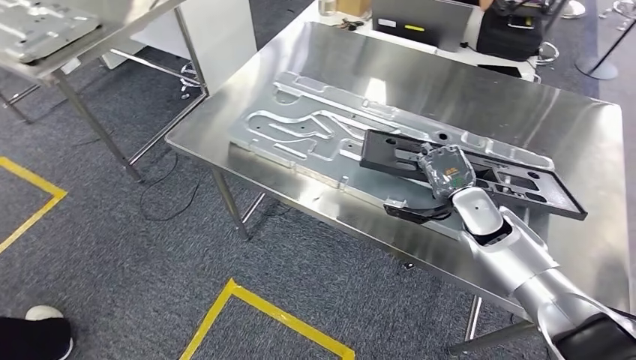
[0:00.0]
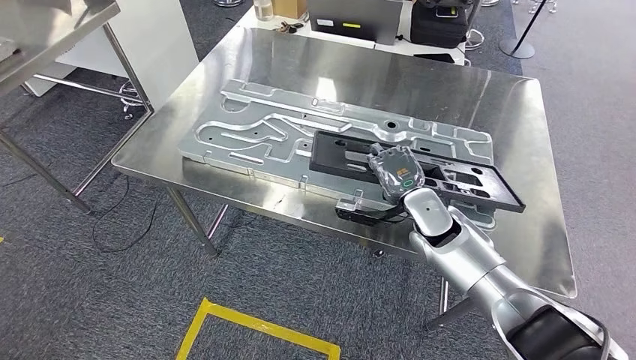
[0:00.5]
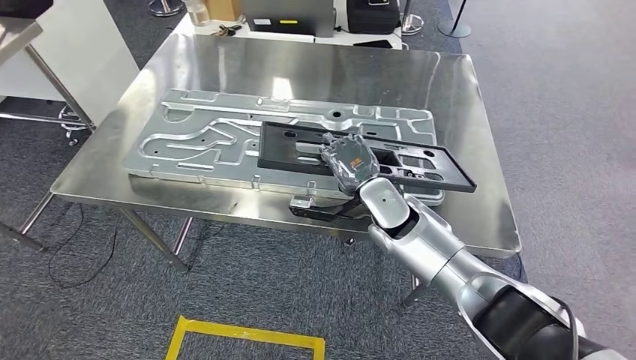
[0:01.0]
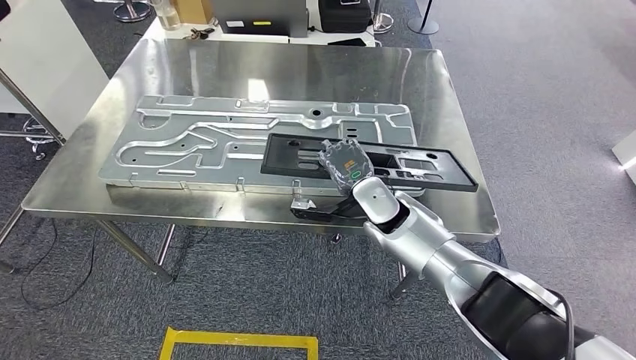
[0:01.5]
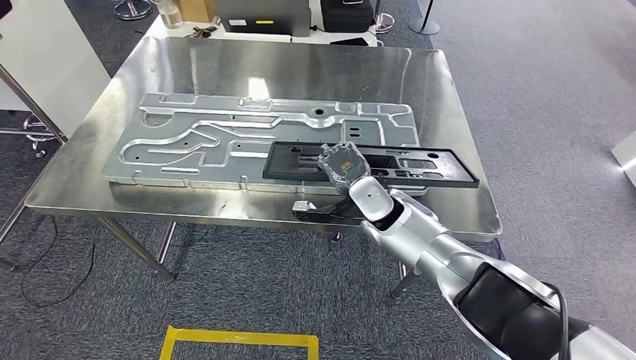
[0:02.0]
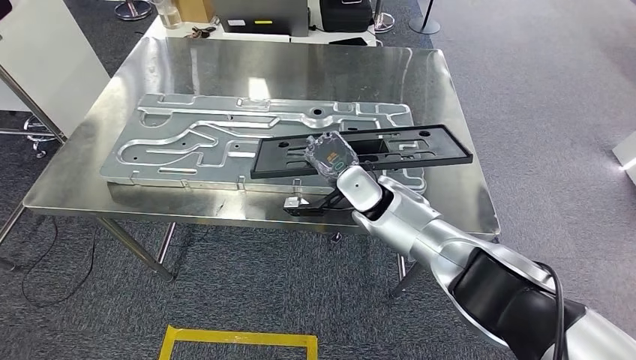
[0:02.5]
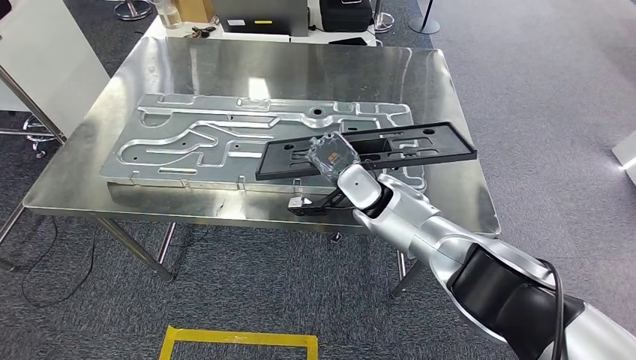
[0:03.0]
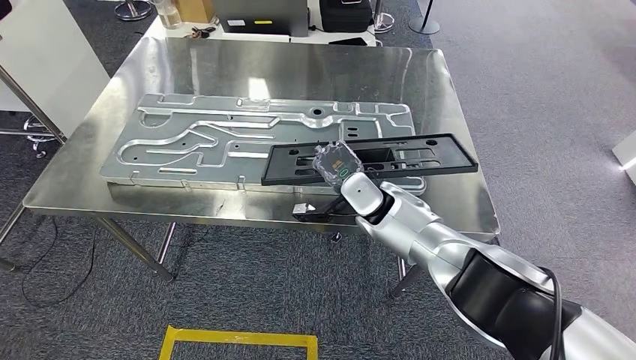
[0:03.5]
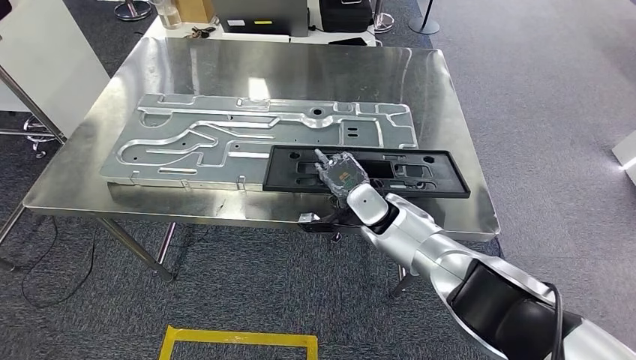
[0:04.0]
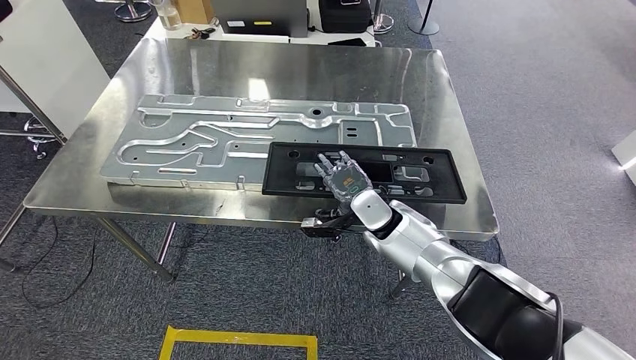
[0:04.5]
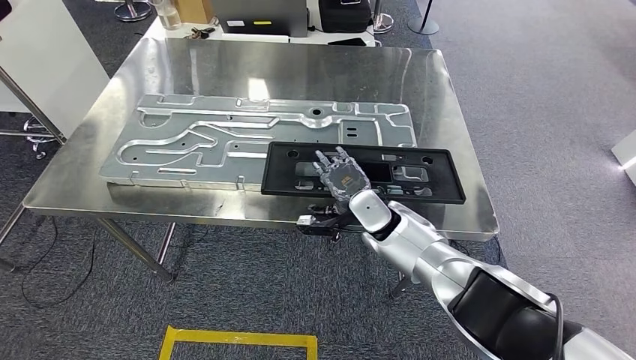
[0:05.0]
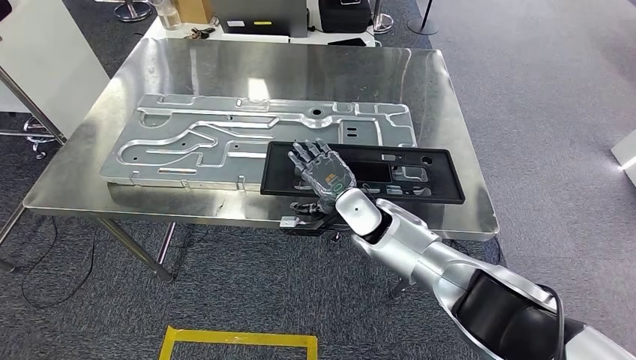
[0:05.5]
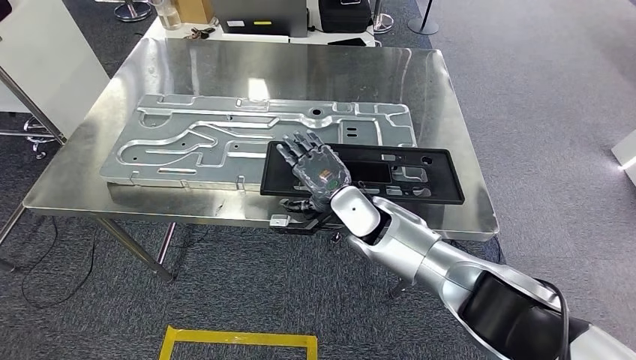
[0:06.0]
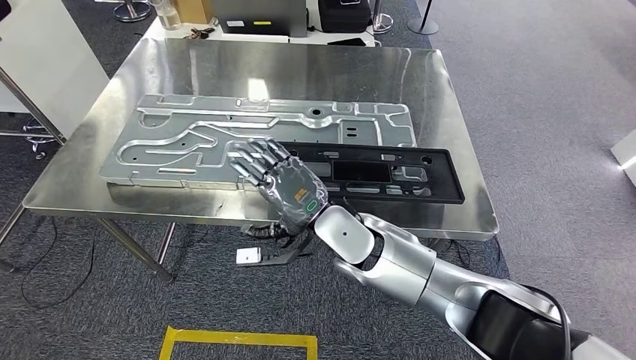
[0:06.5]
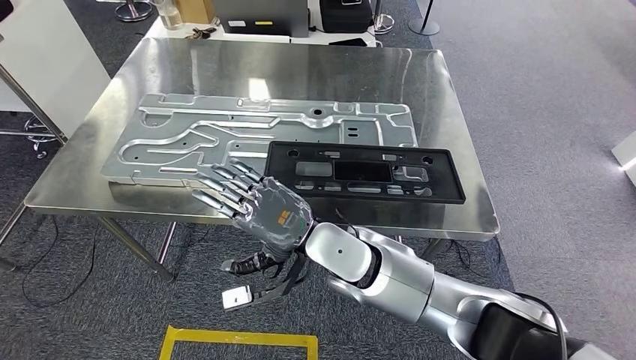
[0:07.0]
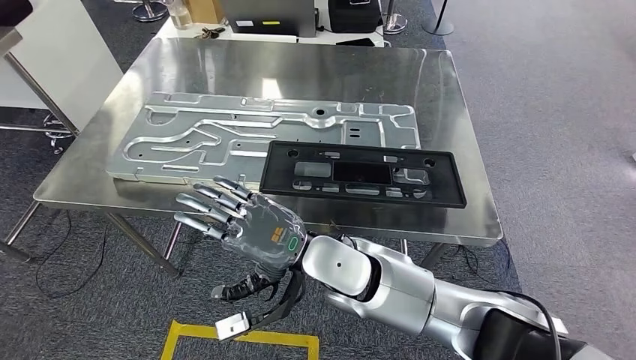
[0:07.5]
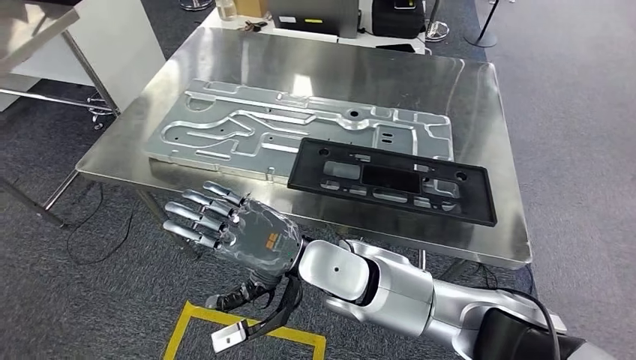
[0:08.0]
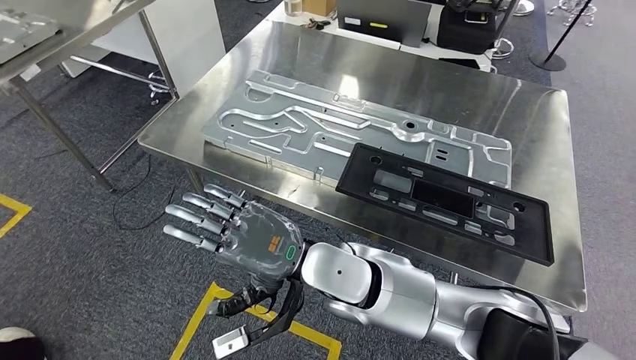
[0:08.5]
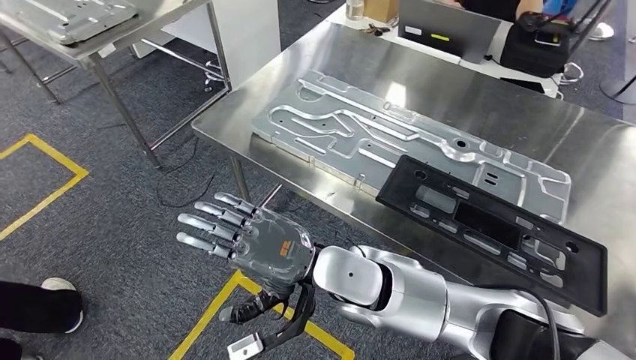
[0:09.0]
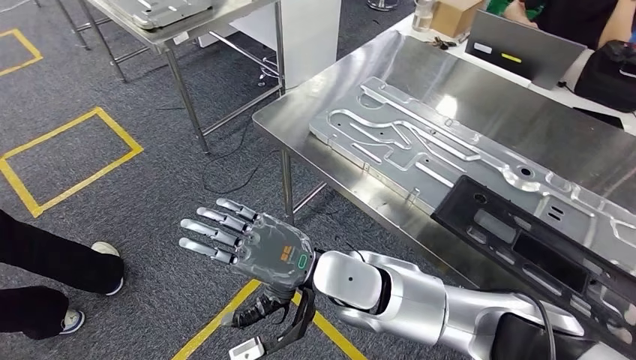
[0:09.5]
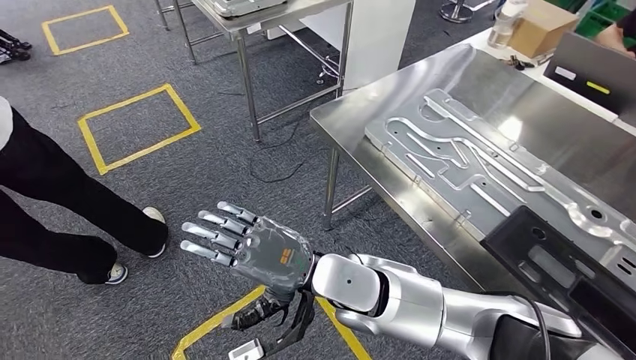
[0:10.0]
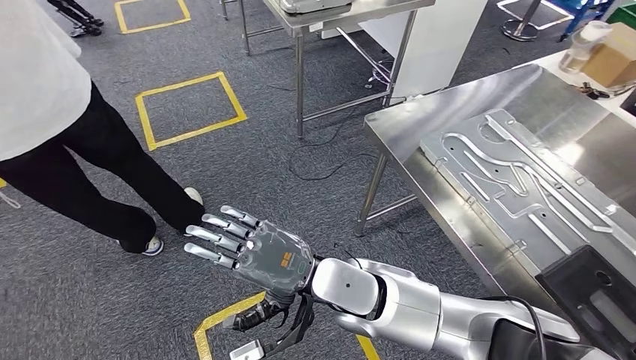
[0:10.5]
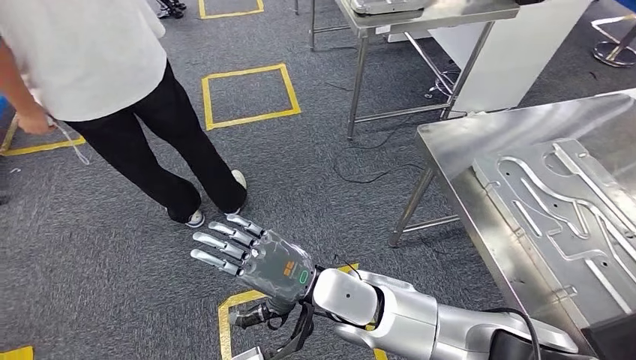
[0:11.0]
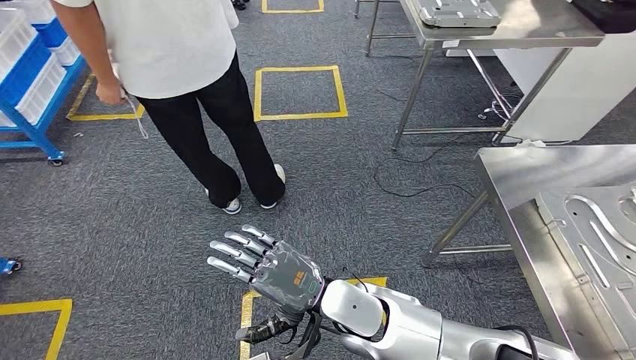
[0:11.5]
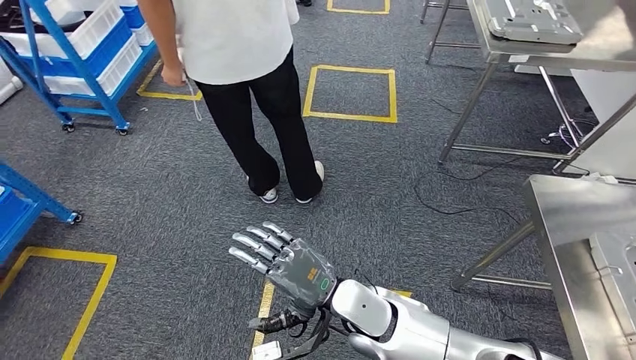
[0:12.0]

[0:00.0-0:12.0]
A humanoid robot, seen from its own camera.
Step, 0:00.0 to 0:09.5: Insert the large material into the corresponding slot on the workbench.
0:02.0 to 0:04.0: There are only small adjustments of the hands.
0:04.0 to 0:06.0: The right hand moves about 5 cm.

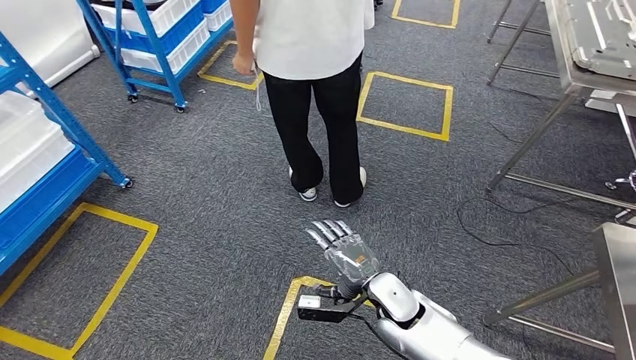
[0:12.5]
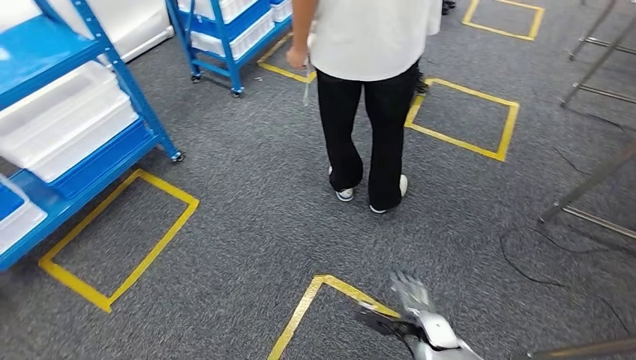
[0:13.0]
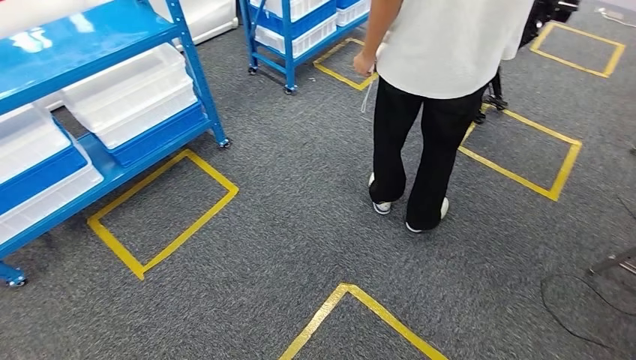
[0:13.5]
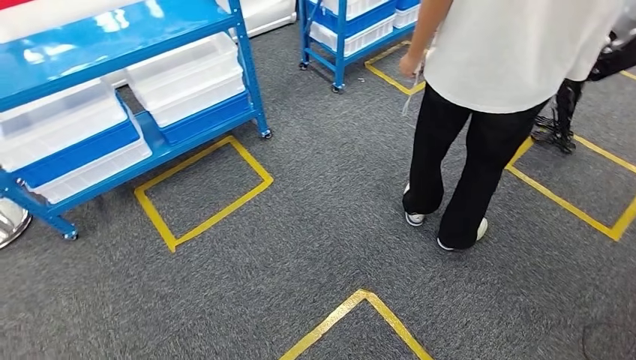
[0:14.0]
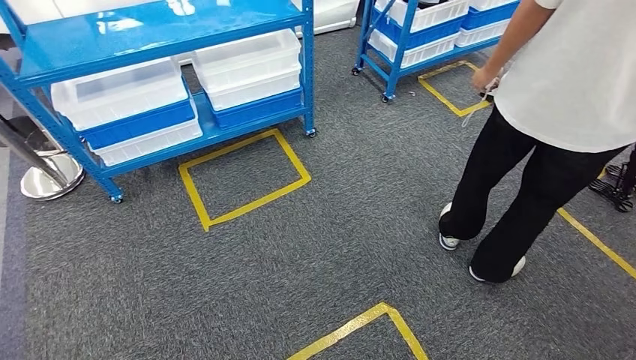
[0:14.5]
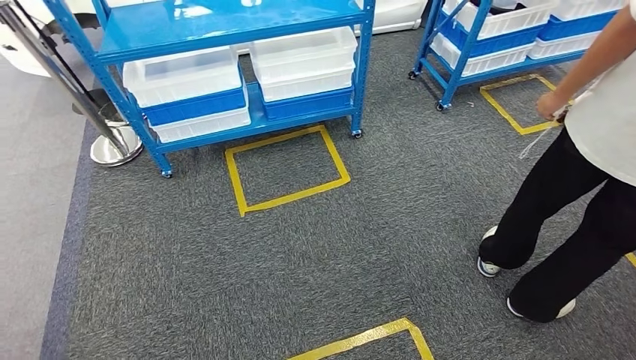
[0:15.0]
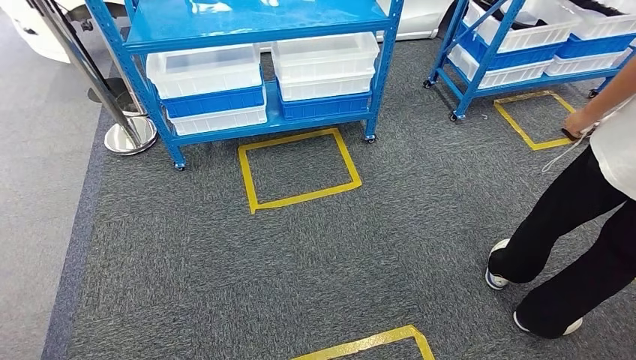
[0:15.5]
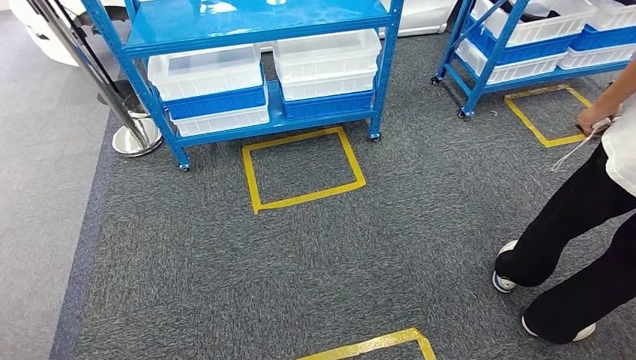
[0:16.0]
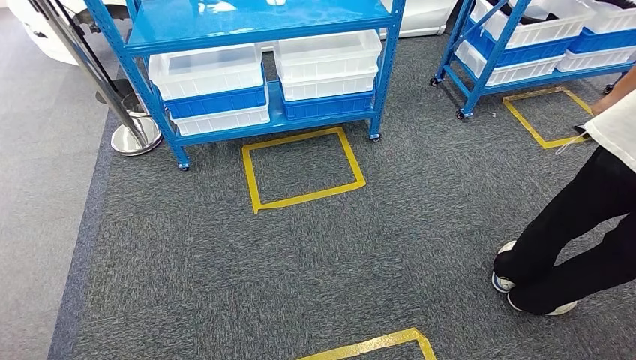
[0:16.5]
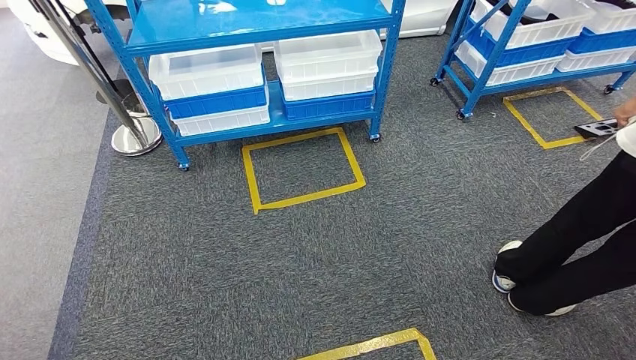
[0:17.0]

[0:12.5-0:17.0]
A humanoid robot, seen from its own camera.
Step, 0:12.5 to 0:17.0: Move to the initial position of the shelf.
